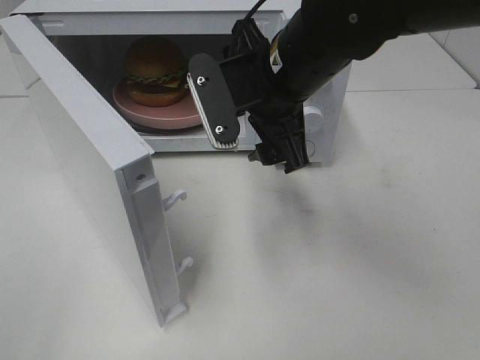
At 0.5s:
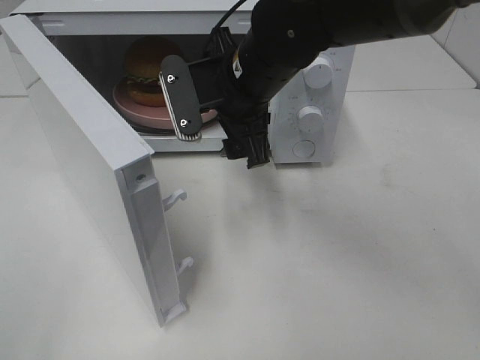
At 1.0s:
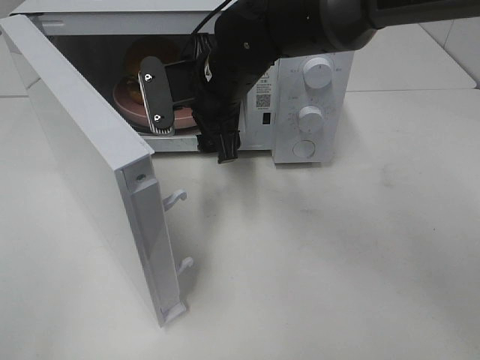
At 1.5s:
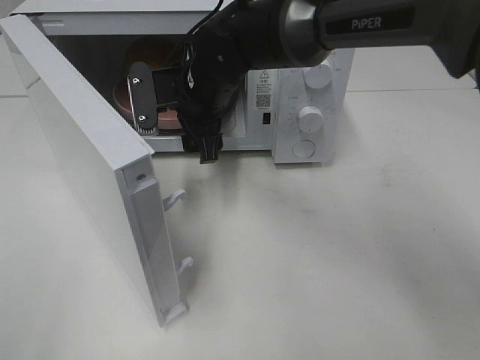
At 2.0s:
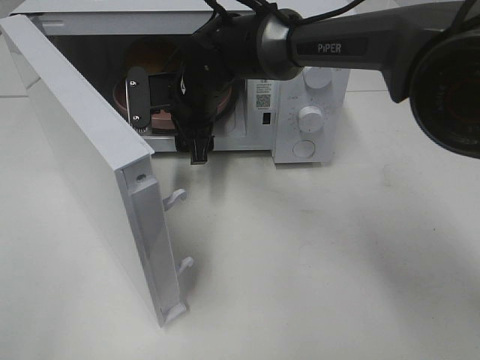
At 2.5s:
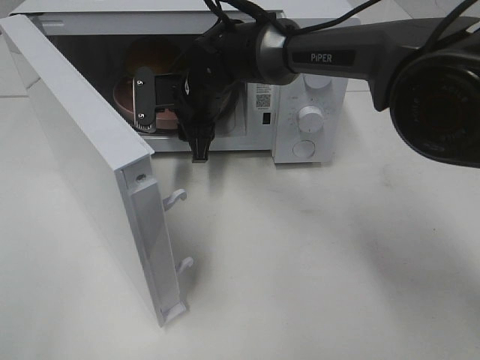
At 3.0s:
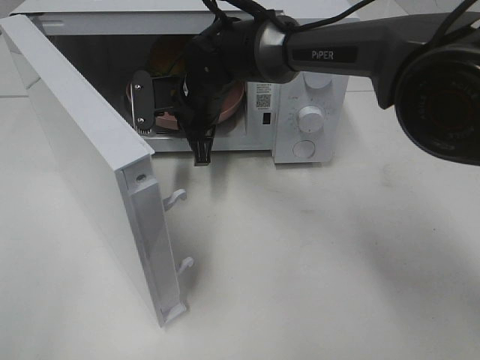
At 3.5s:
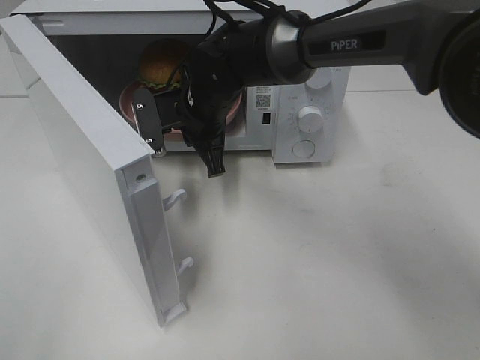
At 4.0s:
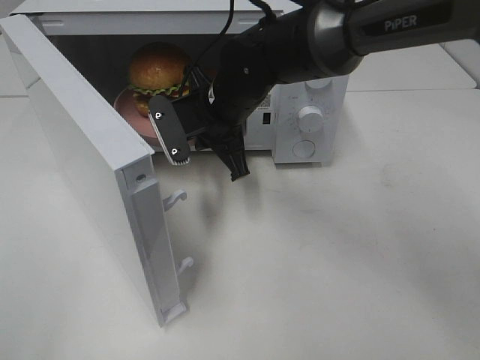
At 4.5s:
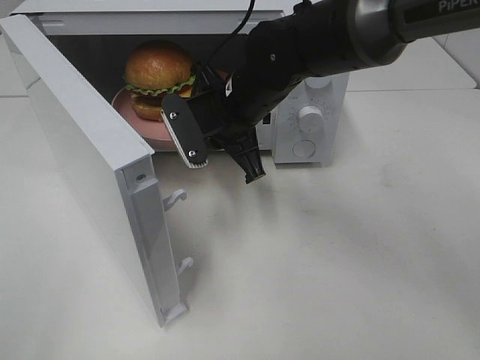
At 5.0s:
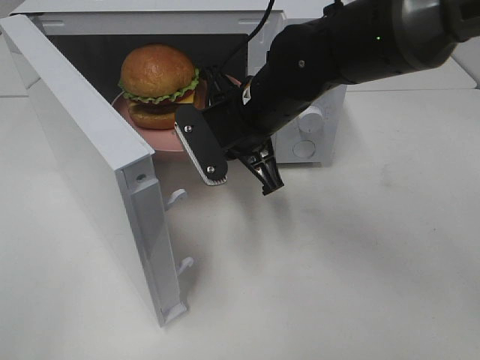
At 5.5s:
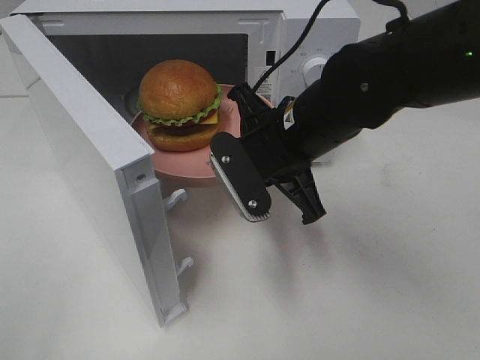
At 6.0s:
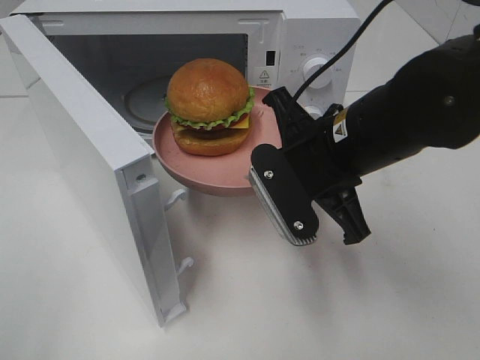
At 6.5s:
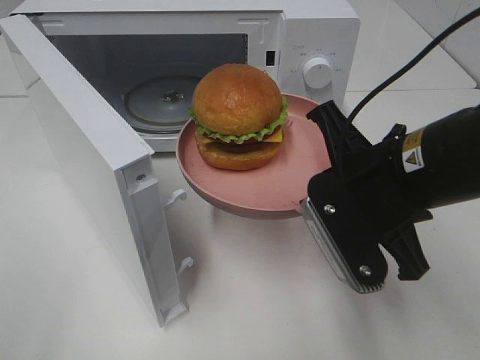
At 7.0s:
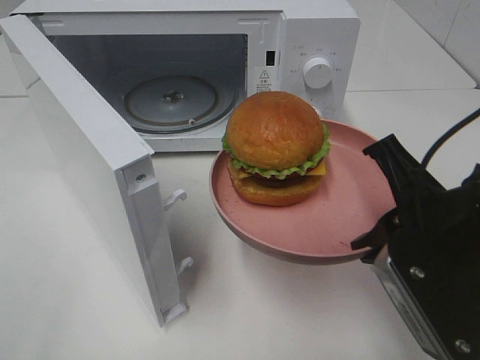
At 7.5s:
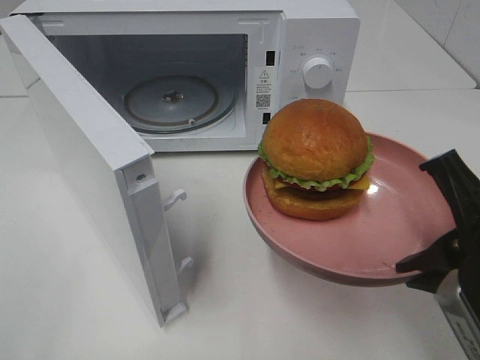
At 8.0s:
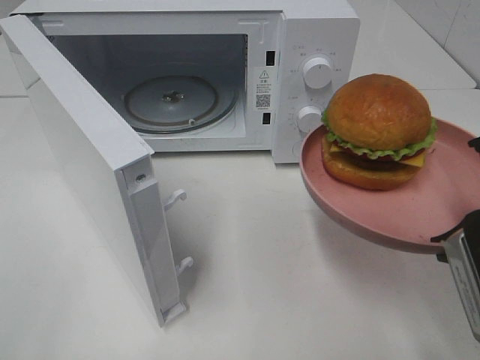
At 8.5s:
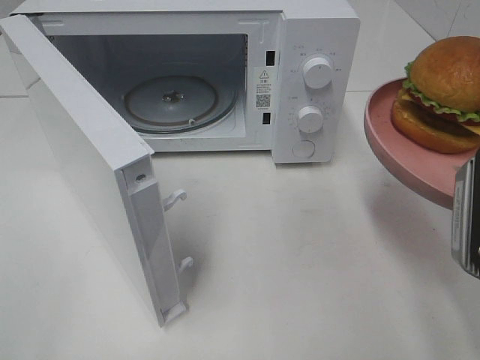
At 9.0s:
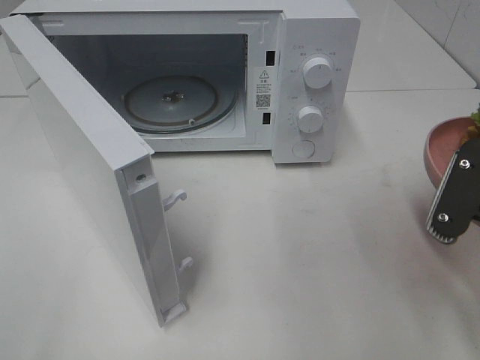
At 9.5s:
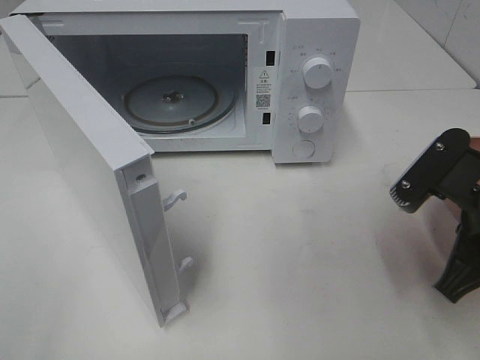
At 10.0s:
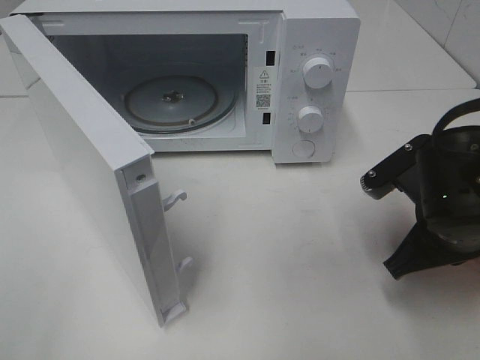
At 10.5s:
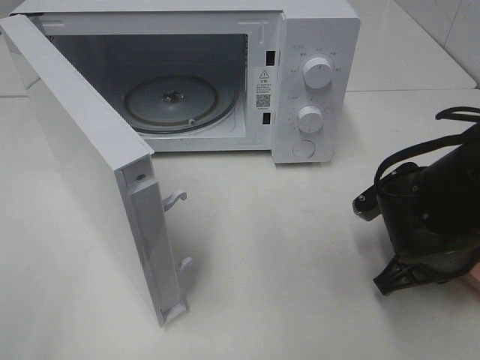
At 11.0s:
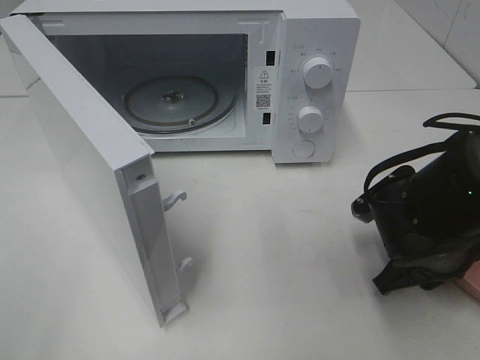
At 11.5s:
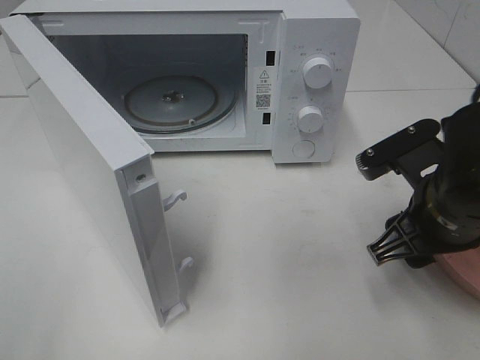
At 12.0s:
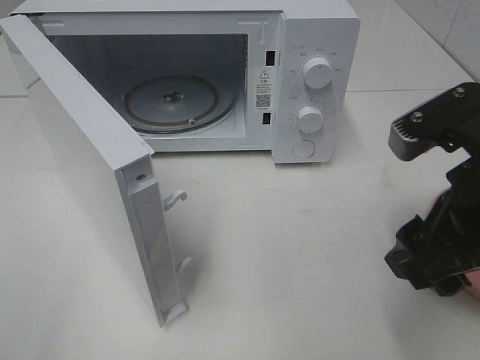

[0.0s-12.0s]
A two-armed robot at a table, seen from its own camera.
Task of the whole recording: Heat the burger.
Step, 0.0s to 3.0s: Right hand: grab the plate with the hamburger.
Step, 3.5s to 11.5s: Right hand: place the plate on the table.
0.0s to 2.0s: The right gripper shifts about 15 cm forward, to the left and downward.
2.0s to 4.0s: The right gripper changes place by about 5 cm, and closes.
4.0s to 6.0s: The right gripper goes roughly 15 cm backward and to the right.
6.0s to 8.0s: The right gripper moves backward and to the right, about 15 cm.
8.0s to 10.0s: The right gripper travels downward and forward by about 15 cm.
10.0s to 12.0s: The right gripper goes about 10 cm upward and backward, and opens.

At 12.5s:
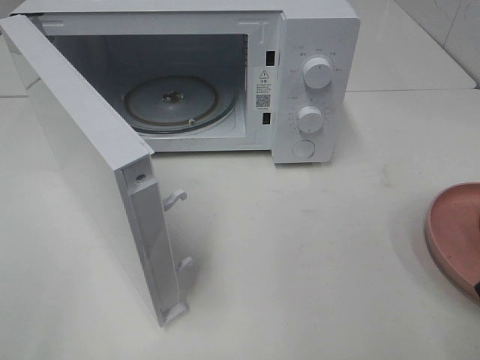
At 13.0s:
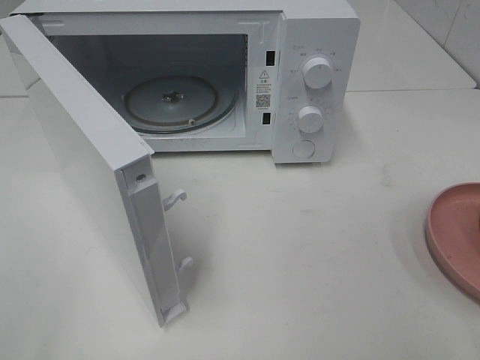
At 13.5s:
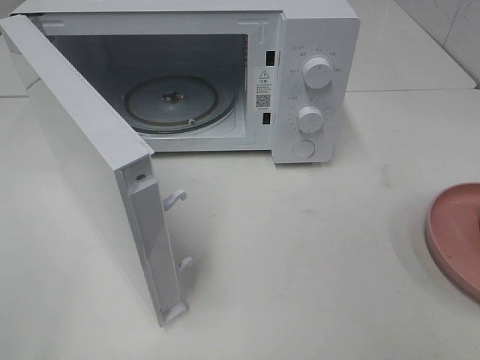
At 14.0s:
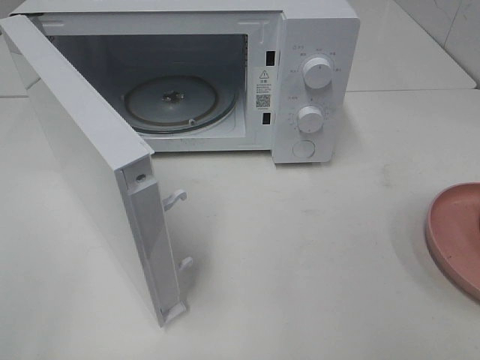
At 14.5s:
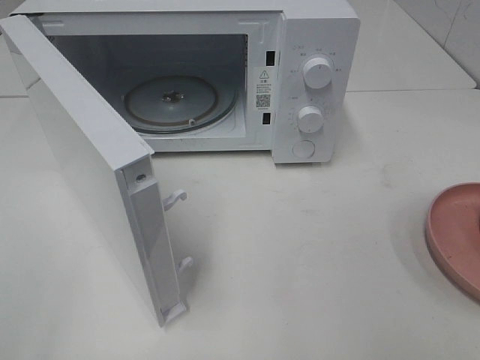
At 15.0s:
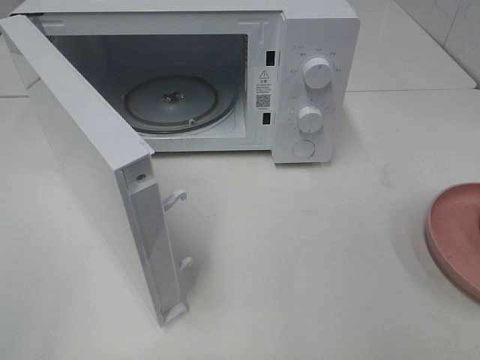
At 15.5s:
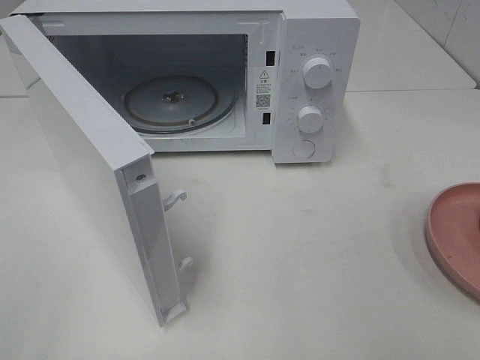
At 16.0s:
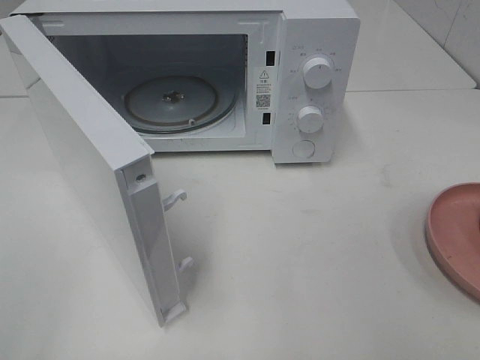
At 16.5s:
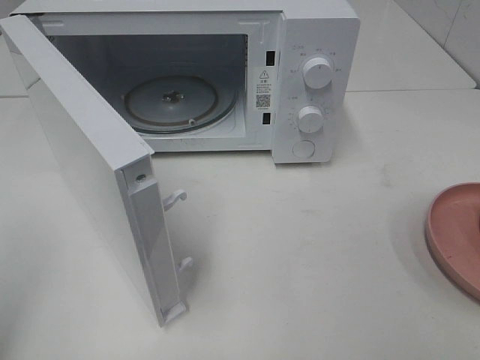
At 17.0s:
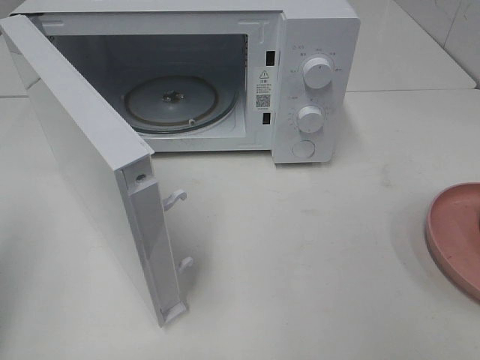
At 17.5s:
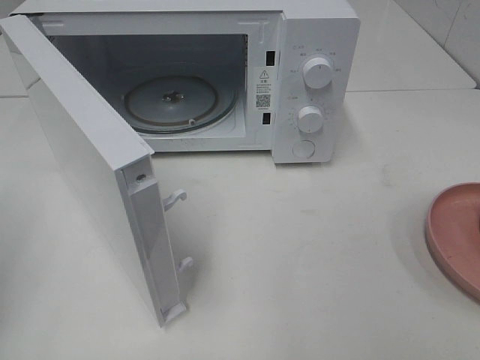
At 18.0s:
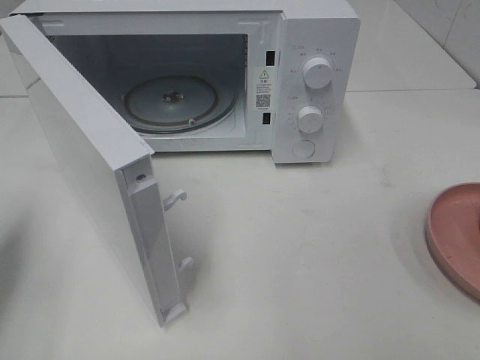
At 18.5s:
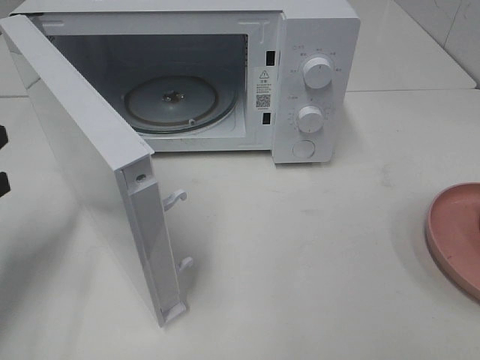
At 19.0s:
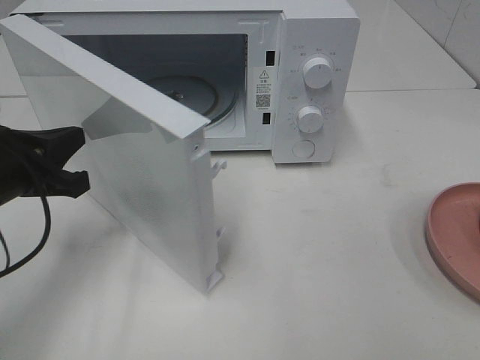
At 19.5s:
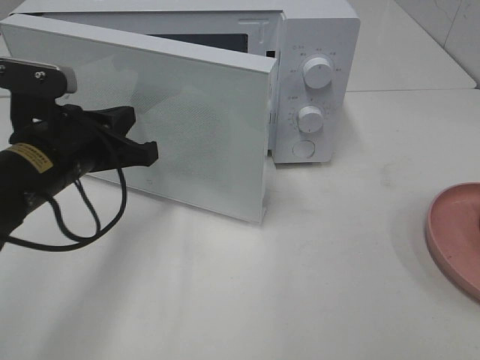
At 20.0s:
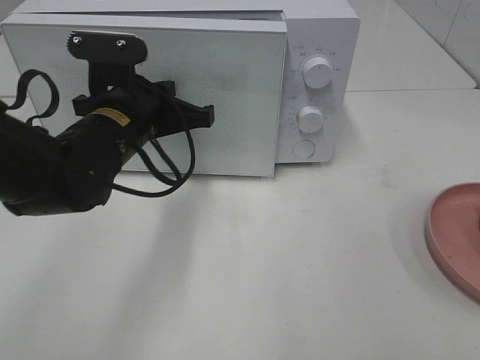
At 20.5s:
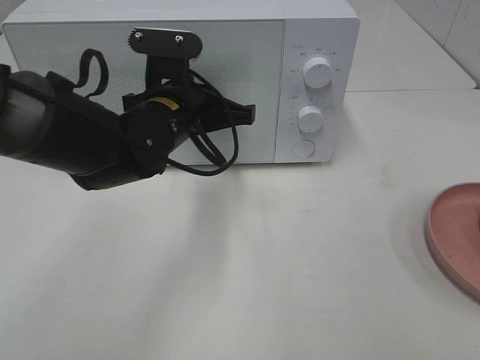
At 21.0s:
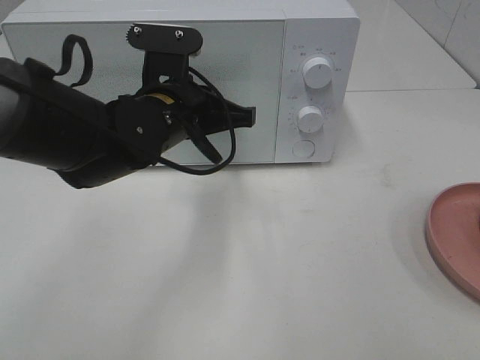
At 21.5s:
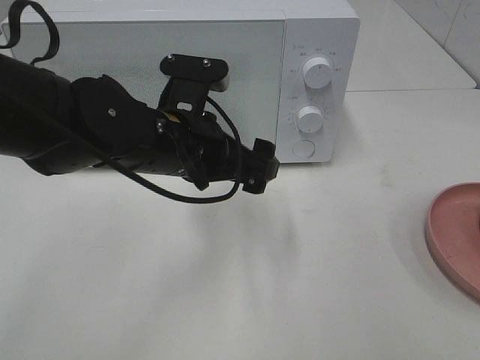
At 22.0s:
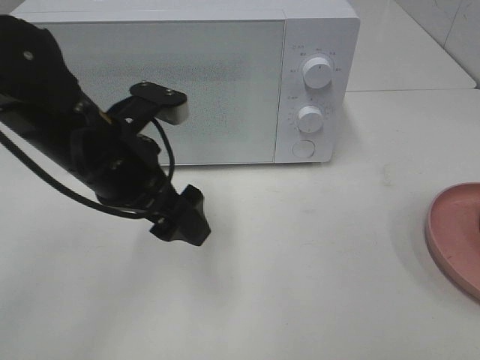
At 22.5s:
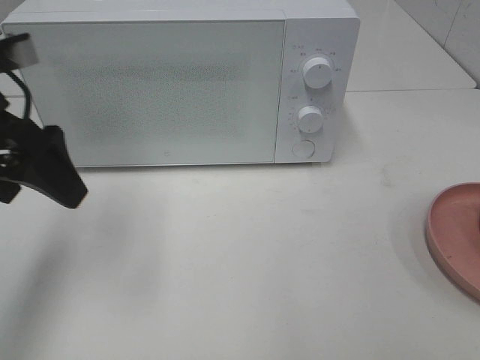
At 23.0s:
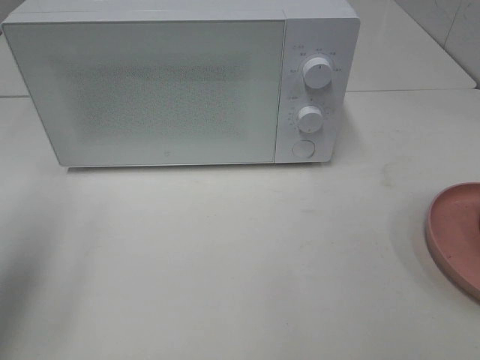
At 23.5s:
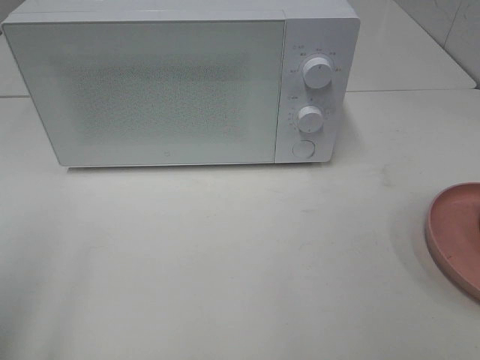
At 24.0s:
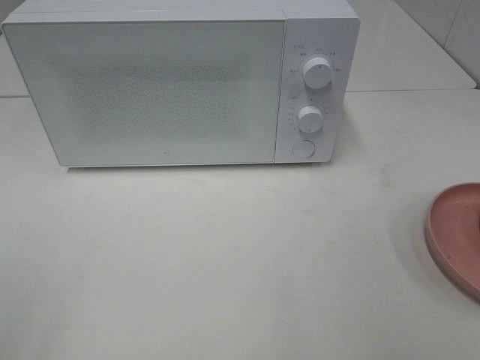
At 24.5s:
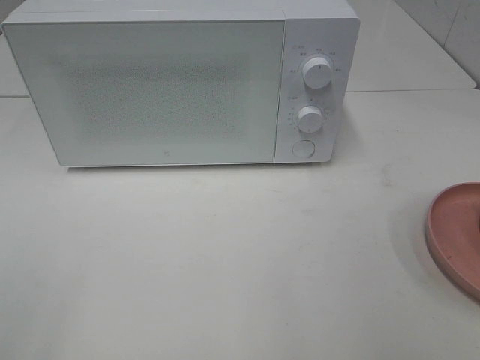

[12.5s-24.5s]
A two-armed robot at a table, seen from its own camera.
Task of the whole recording: Heat the burger.
Step, 12.5s to 21.0s: Left hand: close the microwave door.
16.5s to 18.5s: The left gripper moves forward and downward, approximately 20 cm.
18.5s to 20.5s: The left gripper goes about 25 cm to the right and forward.
20.5s to 22.5s: The left gripper travels to the left, upward and backward by some 20 cm, and opens its fingers.
22.5s to 24.5s: The left gripper heads backward, covering about 25 cm.

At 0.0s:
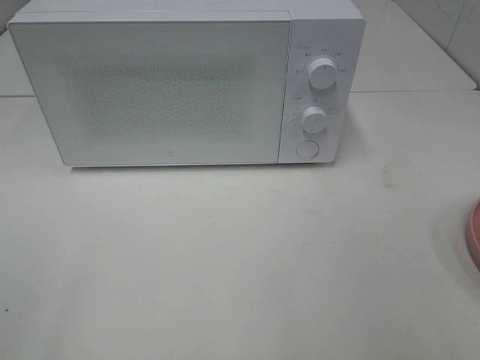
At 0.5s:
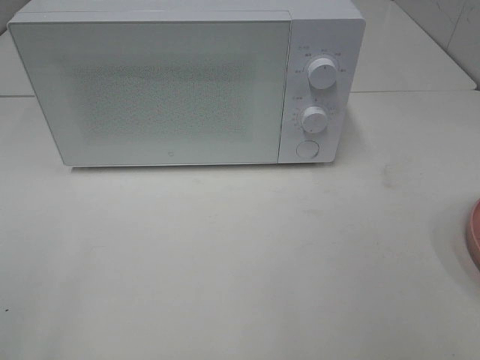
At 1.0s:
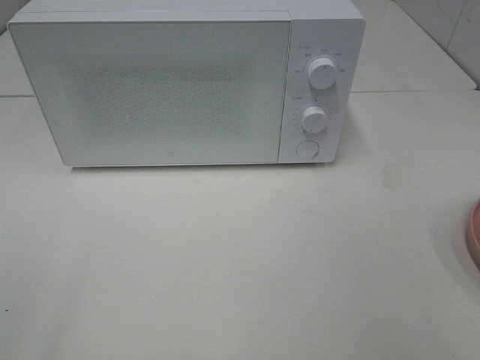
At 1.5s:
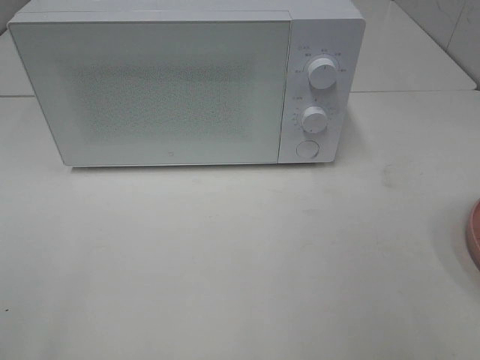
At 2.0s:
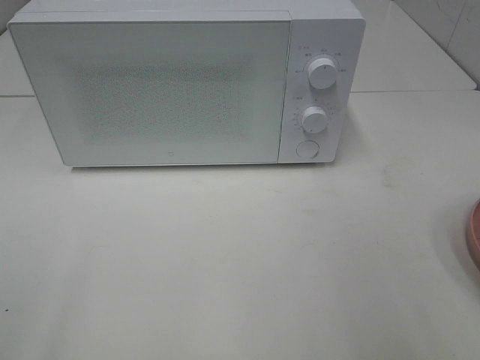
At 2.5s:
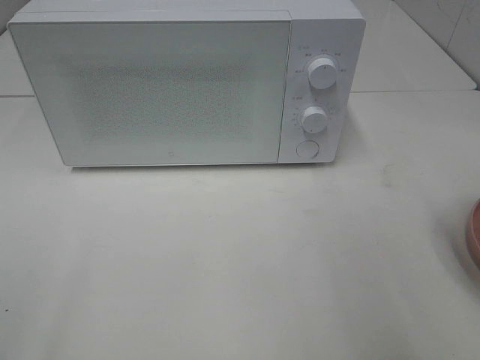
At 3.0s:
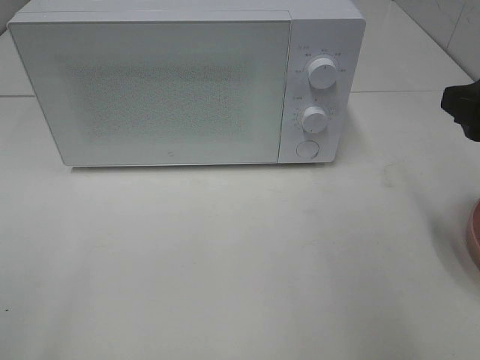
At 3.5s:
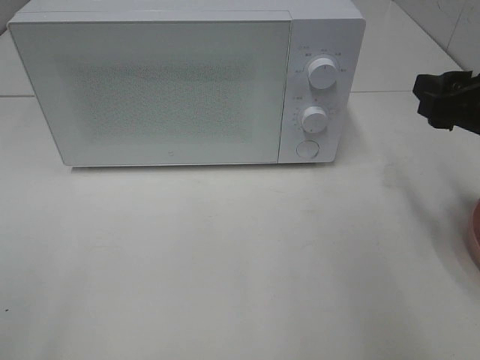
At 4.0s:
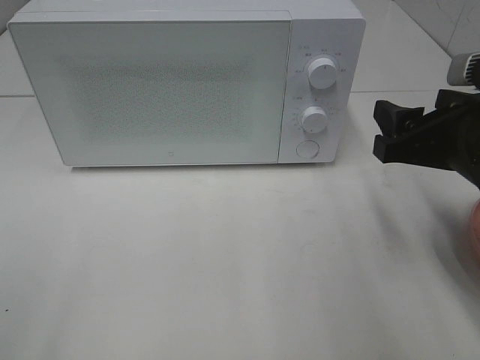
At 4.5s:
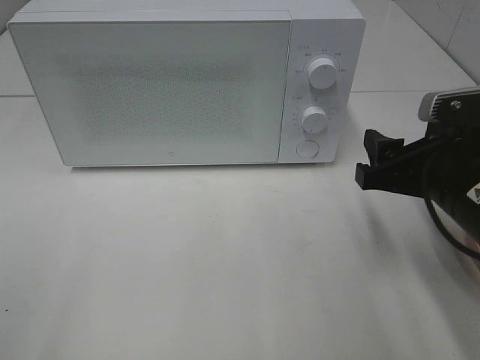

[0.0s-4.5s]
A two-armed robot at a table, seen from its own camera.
Task of the whole recording: Heat the burger.
2.0s to 4.5s: The right gripper is displaced forward, downward and to the left by roughly 20 cm.
